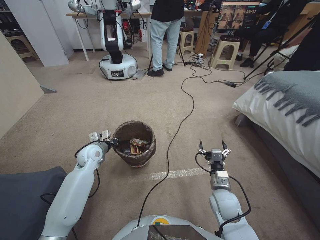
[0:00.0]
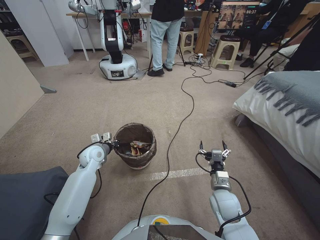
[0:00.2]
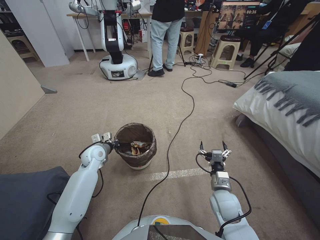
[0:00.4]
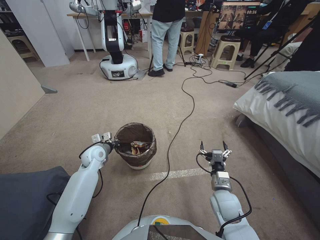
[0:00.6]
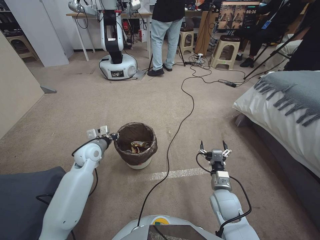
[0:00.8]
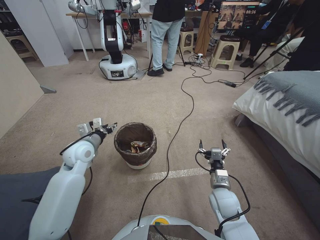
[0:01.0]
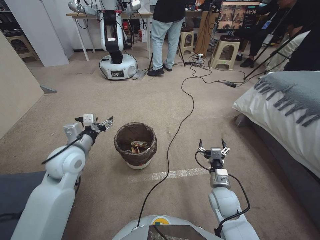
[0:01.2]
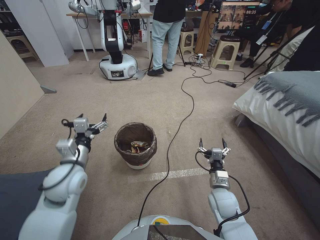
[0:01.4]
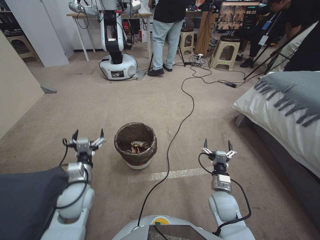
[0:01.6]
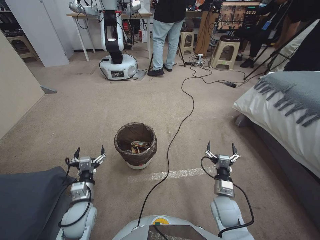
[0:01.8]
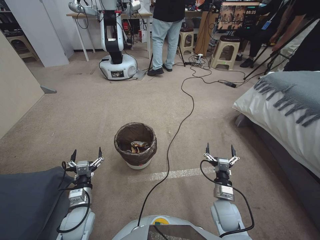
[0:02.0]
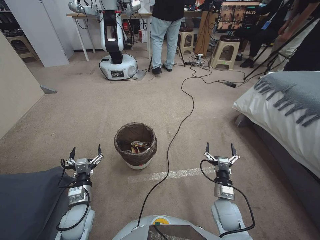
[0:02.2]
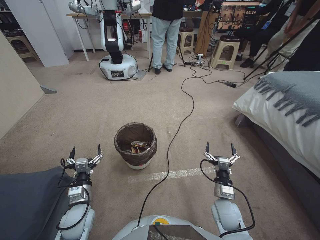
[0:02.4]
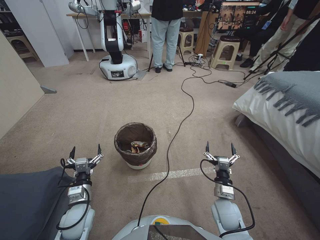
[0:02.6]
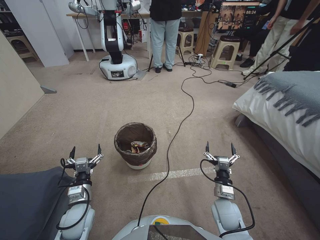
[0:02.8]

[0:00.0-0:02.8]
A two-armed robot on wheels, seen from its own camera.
Task of the whole recording: Pick up the trash bin, then pick up the garbage from the floor and place it into the trash bin.
0:00.0 to 0:01.4: The left gripper travels upward and backward by some 15 cm, and opens up.
0:01.4 to 0:02.8: The left gripper heads downward and backward, covering roughly 20 cm.

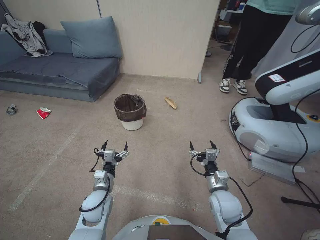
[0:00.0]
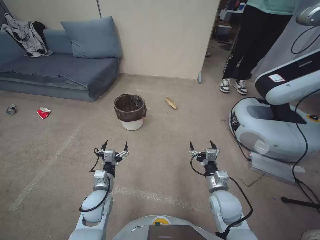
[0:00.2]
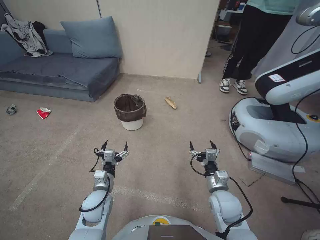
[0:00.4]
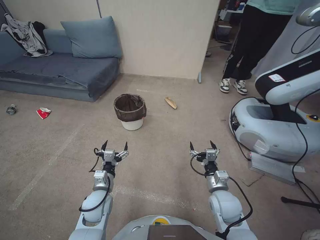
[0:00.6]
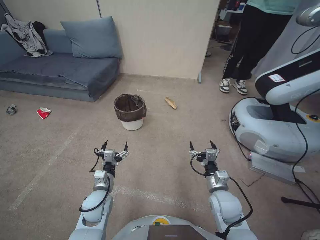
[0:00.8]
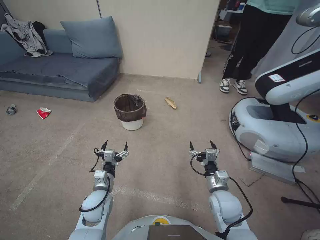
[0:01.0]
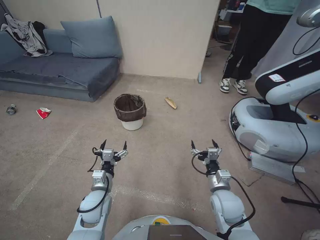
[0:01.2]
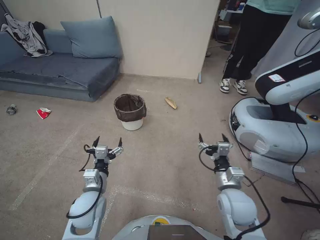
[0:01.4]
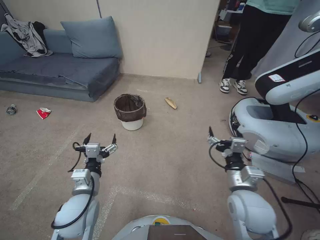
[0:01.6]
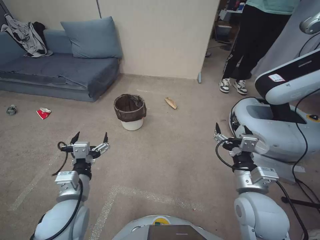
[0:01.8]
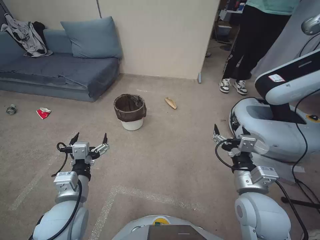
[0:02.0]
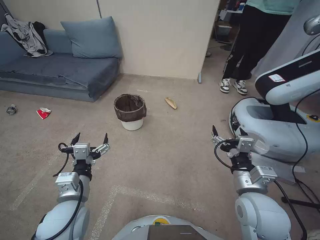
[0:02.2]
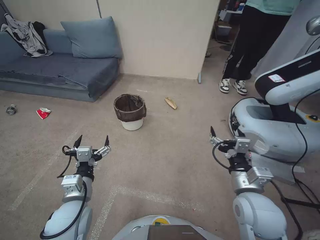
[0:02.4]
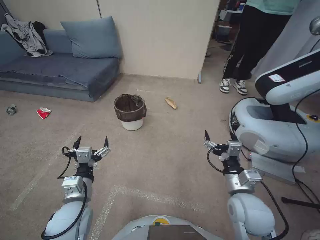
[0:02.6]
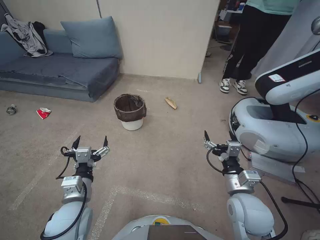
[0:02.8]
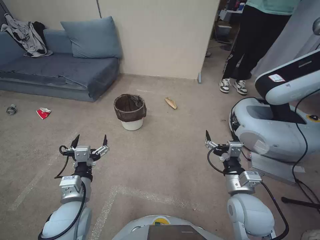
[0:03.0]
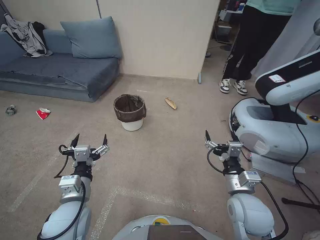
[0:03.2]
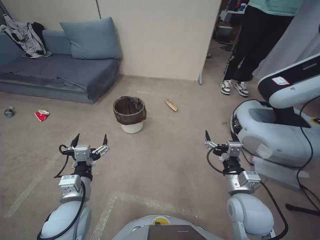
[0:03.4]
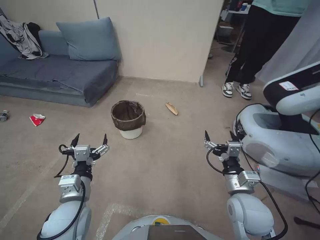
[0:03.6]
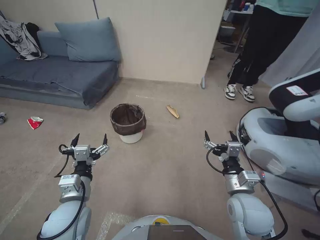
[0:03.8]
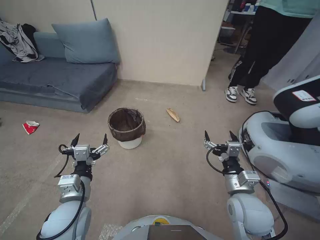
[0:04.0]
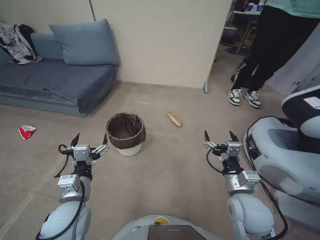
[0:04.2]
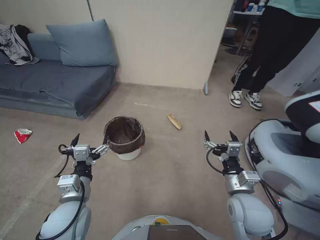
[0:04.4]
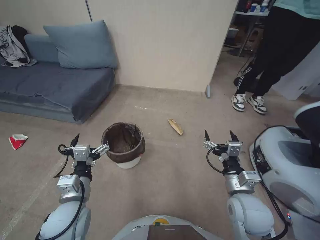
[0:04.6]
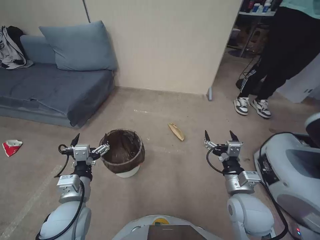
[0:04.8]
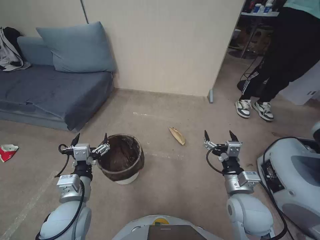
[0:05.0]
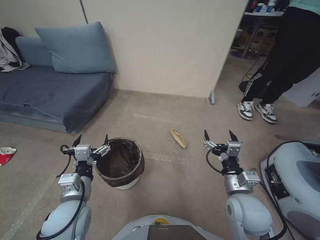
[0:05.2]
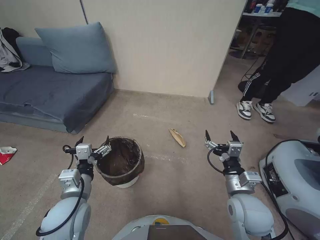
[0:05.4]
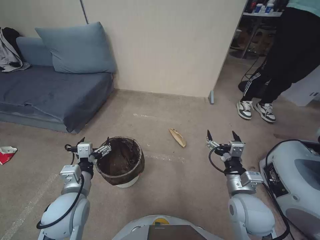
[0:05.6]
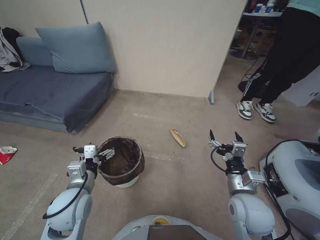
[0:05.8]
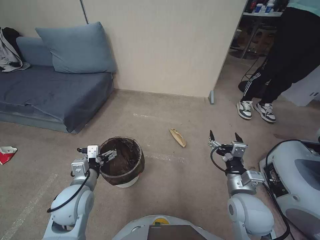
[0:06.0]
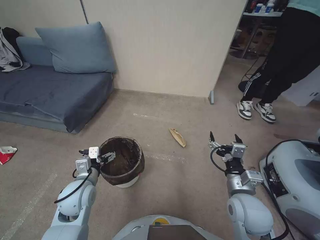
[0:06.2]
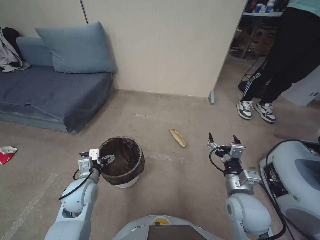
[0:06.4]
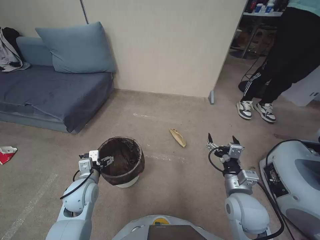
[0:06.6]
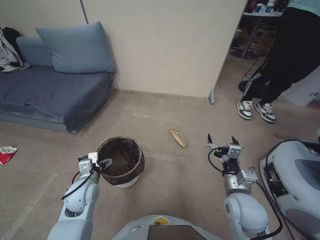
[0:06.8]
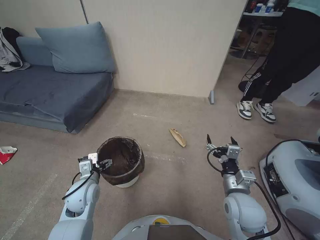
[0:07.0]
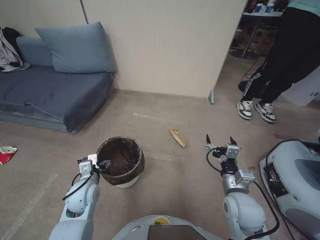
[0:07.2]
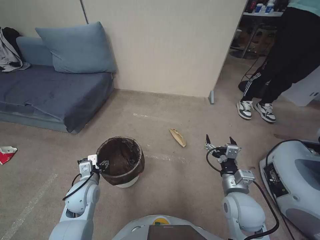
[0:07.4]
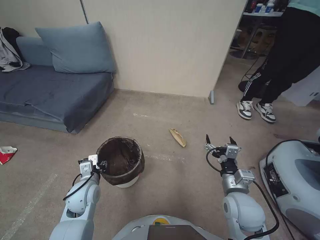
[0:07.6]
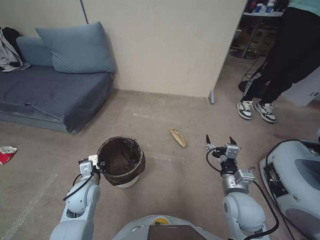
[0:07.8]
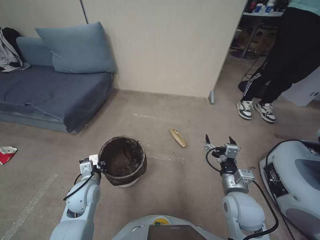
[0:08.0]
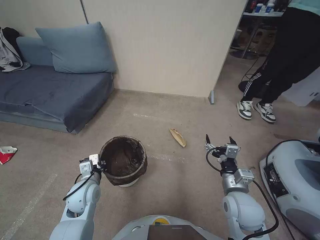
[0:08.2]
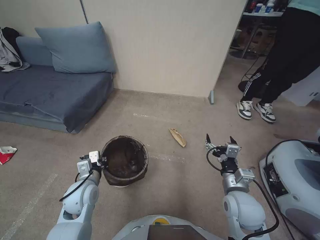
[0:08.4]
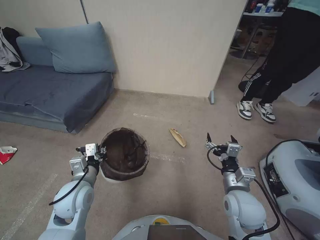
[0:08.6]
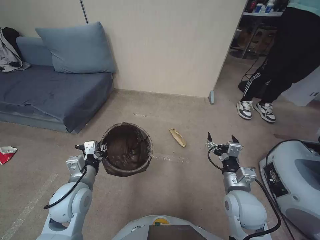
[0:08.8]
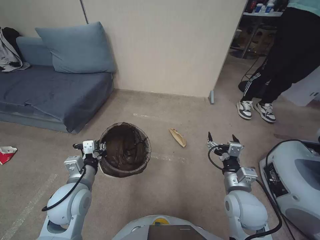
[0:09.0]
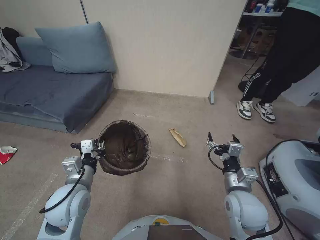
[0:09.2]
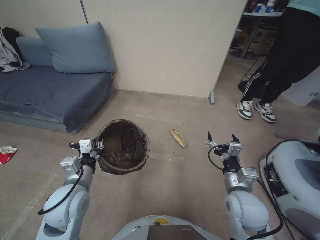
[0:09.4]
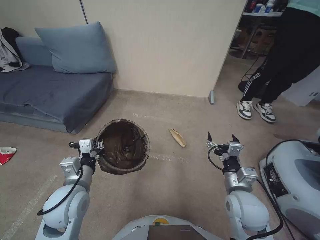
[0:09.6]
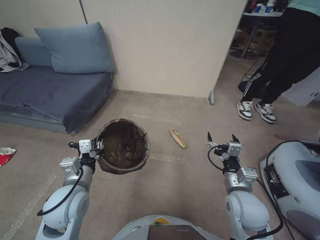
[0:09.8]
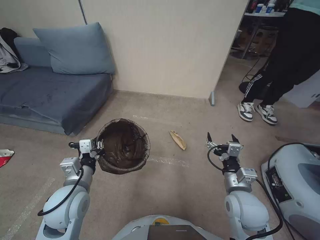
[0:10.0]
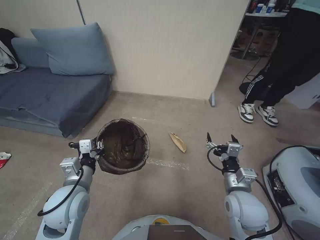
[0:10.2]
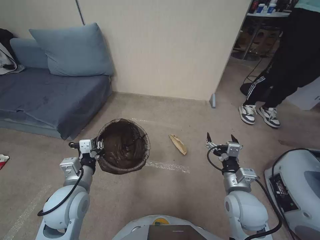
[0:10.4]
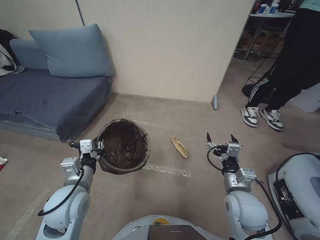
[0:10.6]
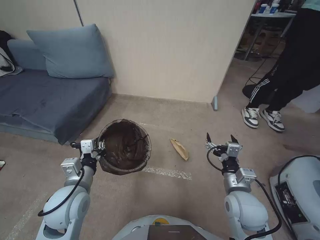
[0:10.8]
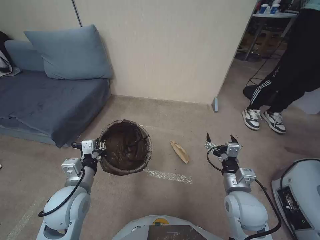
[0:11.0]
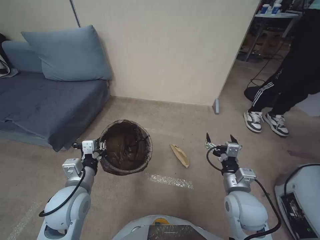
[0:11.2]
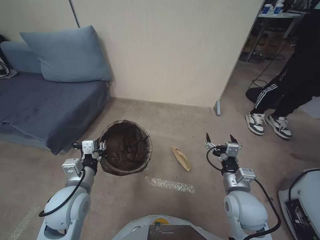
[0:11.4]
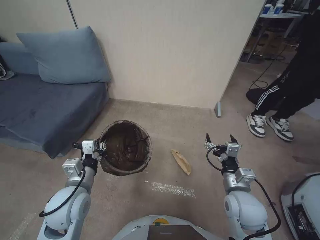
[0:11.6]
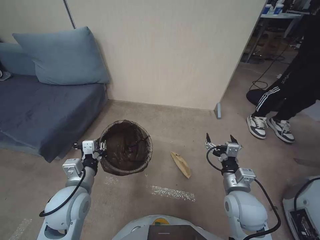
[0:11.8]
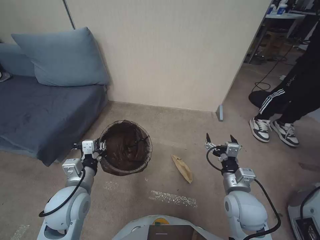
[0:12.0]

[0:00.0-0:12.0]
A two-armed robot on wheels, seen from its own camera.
Task of the whole recording: Pick up the trash bin, then pick up the garbage from the floor and place it into the trash bin.
0:06.0 to 0:07.6: The left gripper is displaced downward by some 5 cm, and closes.
0:07.6 to 0:09.0: The left gripper shifts approximately 10 cm upward, and closes its fingers.
0:09.0 to 0:10.4: The grippers stay close to where they were, moving slightly.

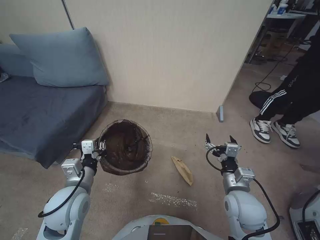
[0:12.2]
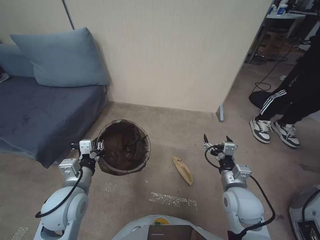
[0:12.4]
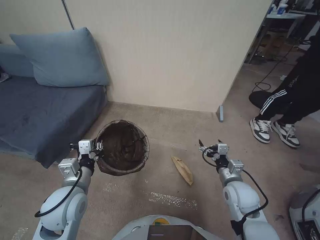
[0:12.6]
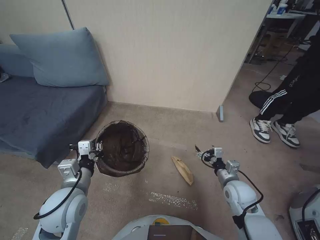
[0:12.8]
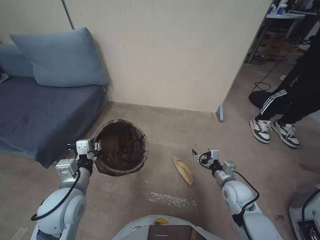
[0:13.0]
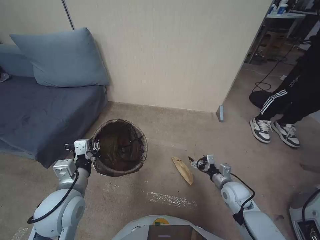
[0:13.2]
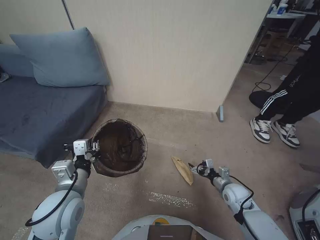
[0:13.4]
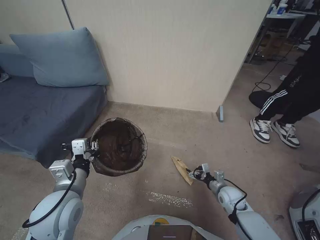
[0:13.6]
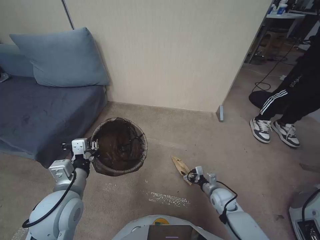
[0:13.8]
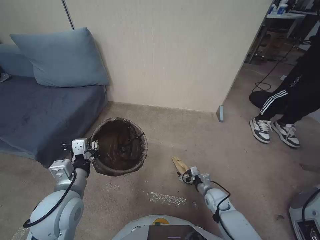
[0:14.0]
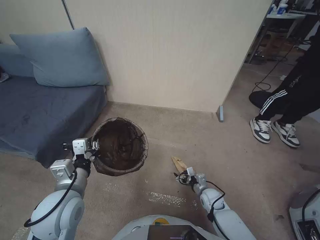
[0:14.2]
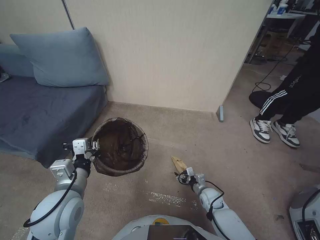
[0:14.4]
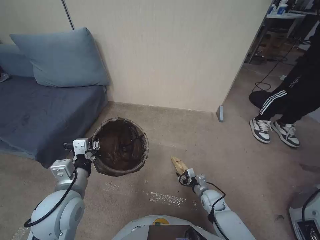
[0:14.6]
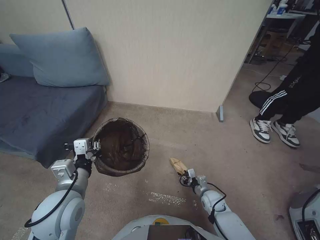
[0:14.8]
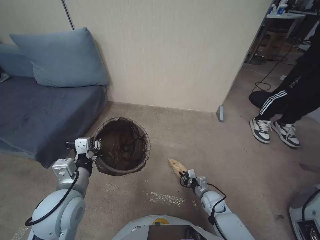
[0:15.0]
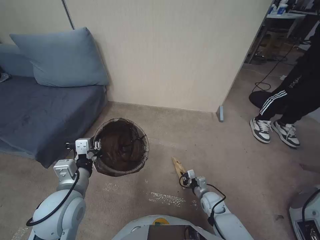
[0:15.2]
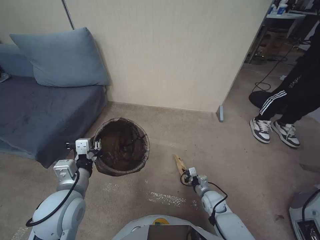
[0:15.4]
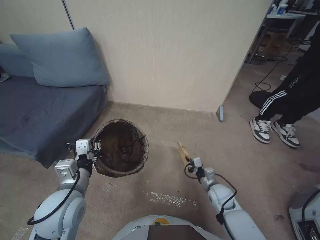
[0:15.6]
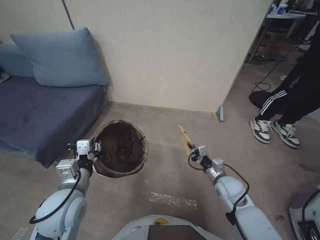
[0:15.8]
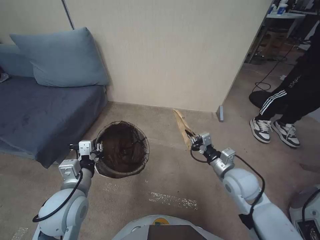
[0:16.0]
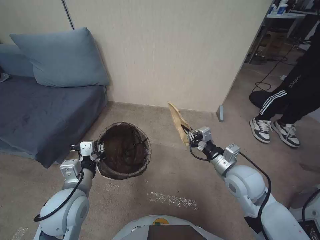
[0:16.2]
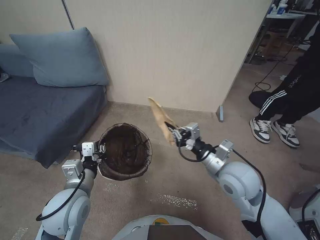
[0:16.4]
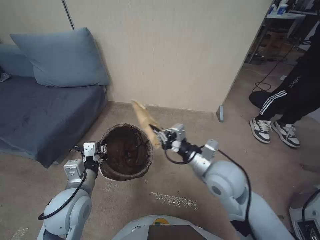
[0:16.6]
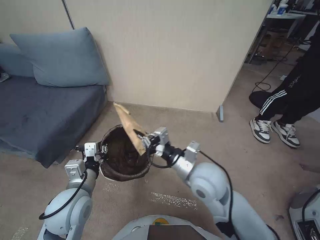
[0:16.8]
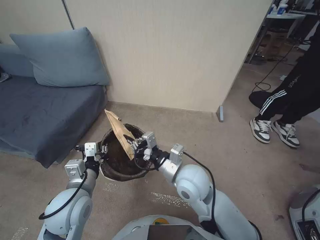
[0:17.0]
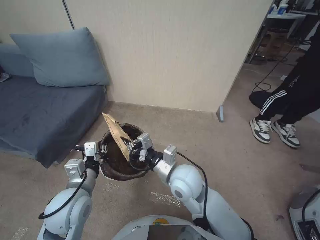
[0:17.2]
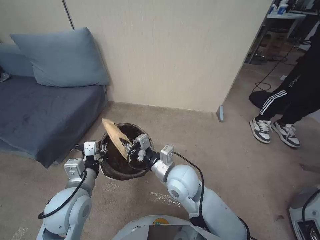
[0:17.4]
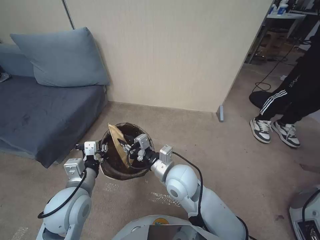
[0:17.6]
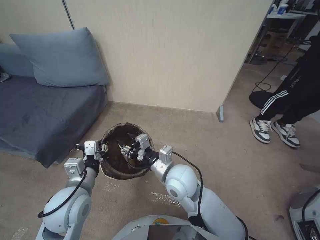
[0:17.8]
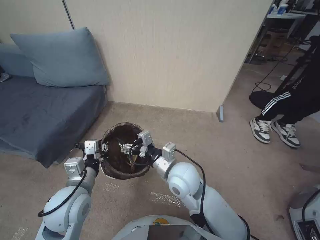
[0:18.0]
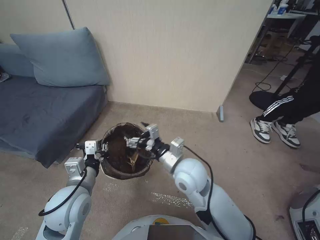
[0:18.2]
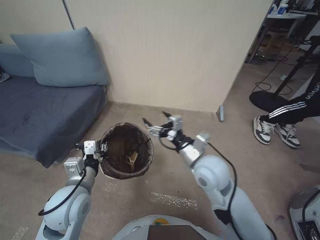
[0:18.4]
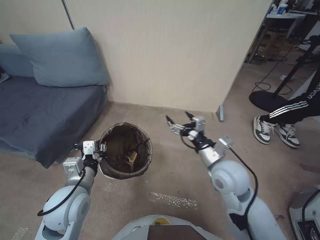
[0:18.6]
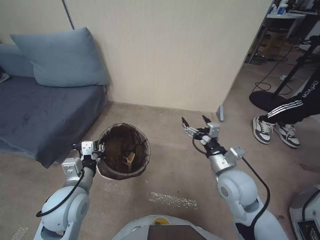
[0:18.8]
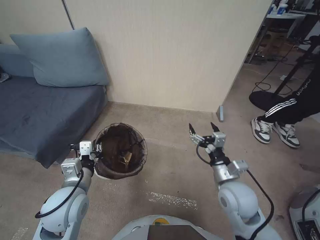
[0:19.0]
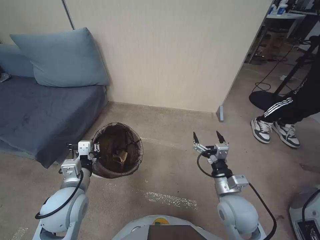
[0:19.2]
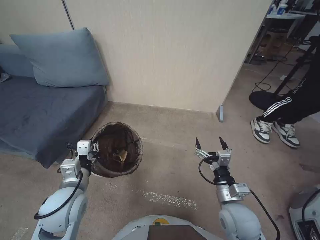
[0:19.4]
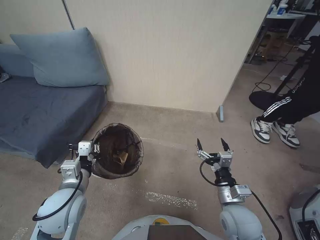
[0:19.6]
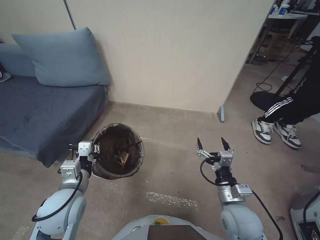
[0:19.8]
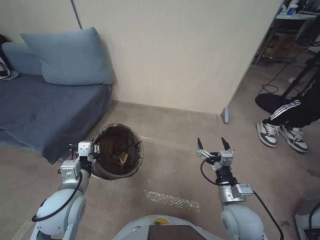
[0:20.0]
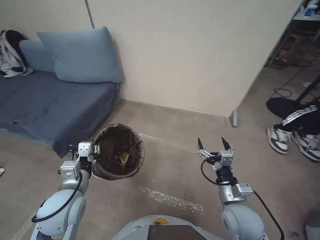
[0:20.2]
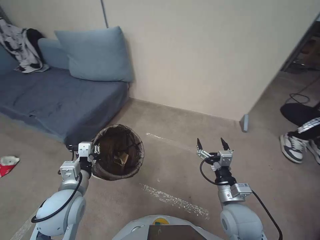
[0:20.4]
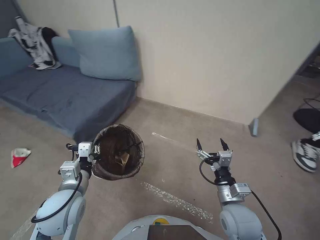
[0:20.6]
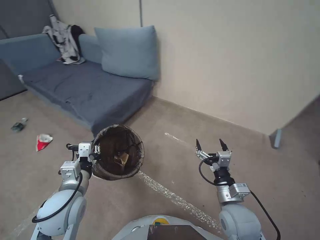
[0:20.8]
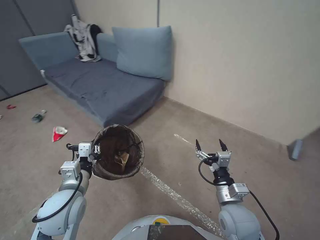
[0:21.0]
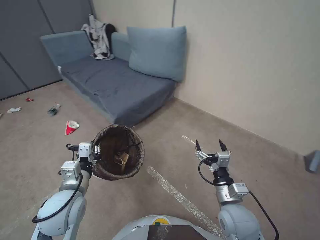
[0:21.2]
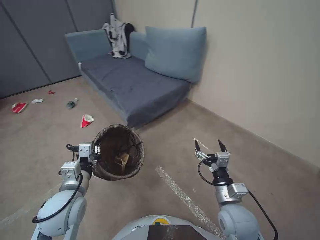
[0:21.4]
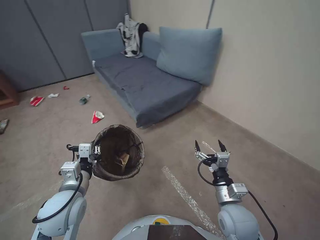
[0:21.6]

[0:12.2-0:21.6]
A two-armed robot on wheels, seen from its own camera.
Task of the whole recording: Pick up the trash bin, then pick up the garbage from the floor and place it into the trash bin.
0:12.2 to 0:13.8: The right gripper shifts some 20 cm downward.
0:13.8 to 0:15.4: The right gripper ends up approximately 5 cm from where it was, and closes.
0:15.4 to 0:17.0: The right gripper is displaced upward and to the left by some 35 cm.
0:17.0 to 0:18.4: The right gripper opens its fingers.
0:18.4 to 0:20.0: The right gripper heads to the right, backward and downward, covering roughly 20 cm.